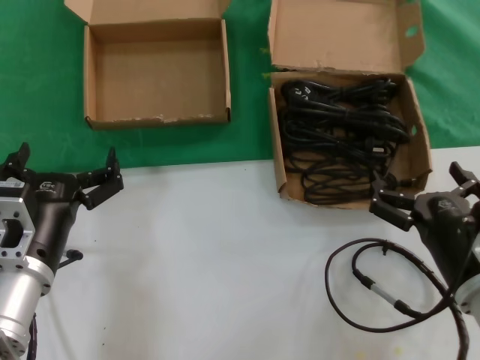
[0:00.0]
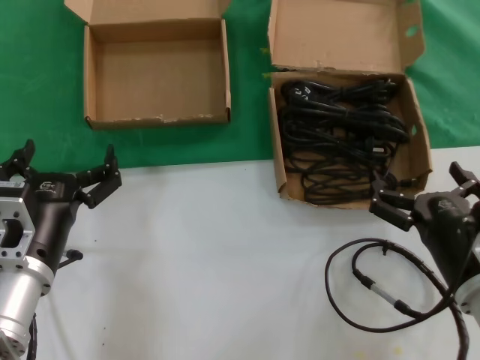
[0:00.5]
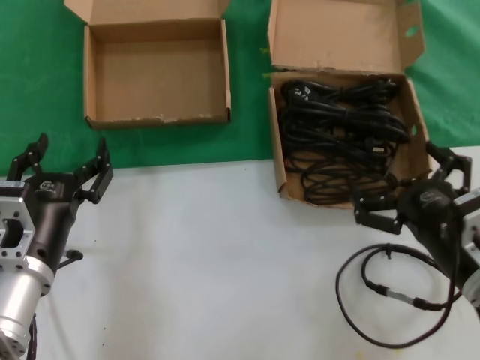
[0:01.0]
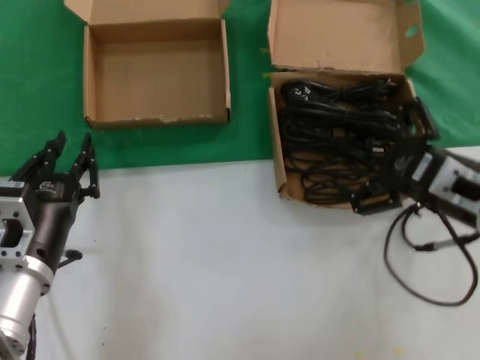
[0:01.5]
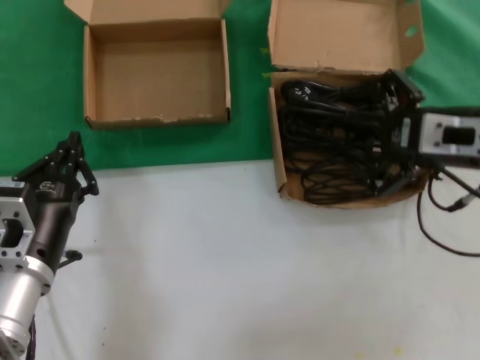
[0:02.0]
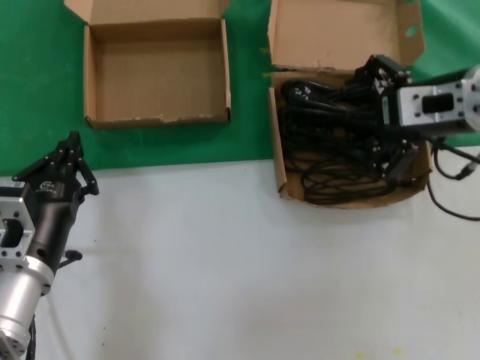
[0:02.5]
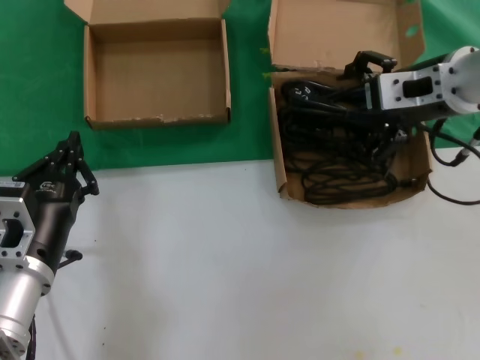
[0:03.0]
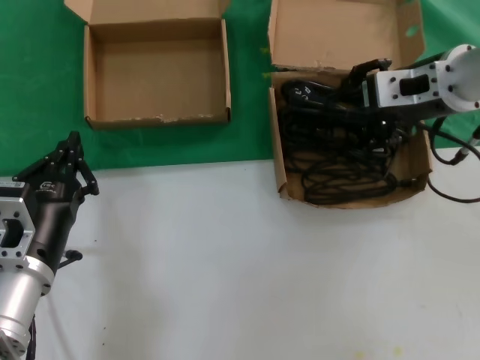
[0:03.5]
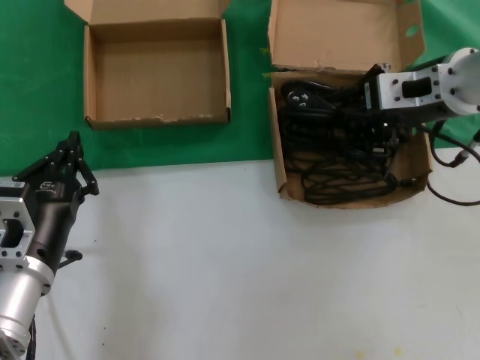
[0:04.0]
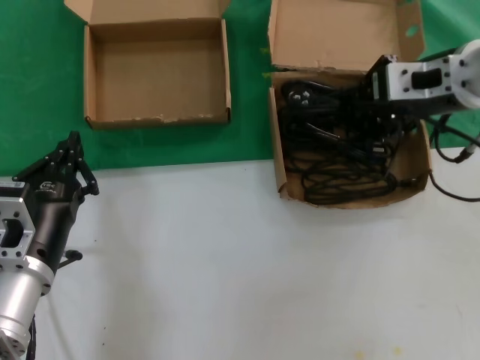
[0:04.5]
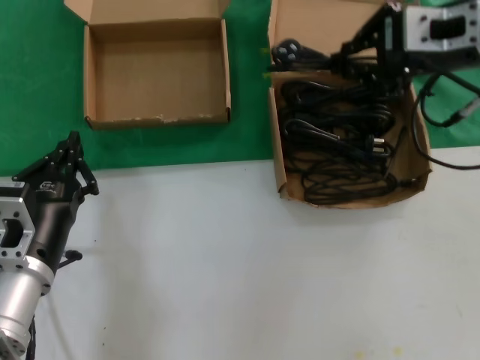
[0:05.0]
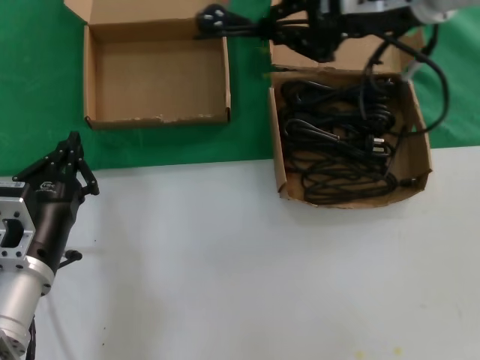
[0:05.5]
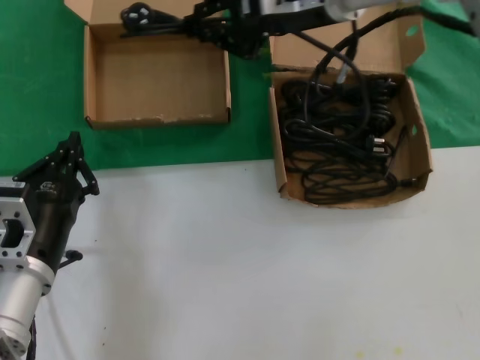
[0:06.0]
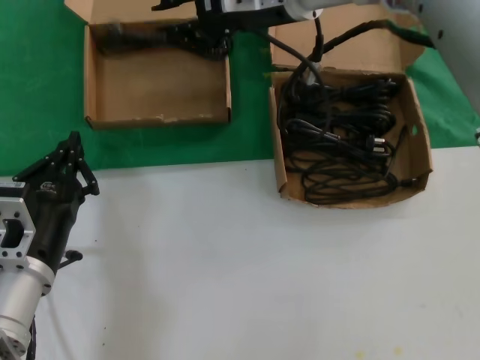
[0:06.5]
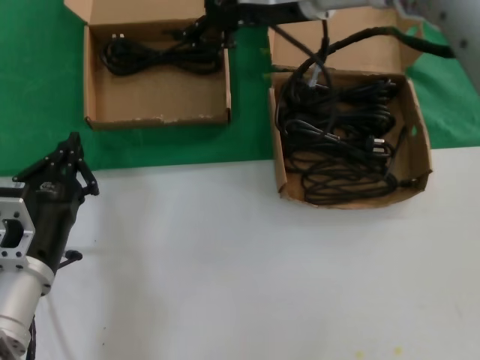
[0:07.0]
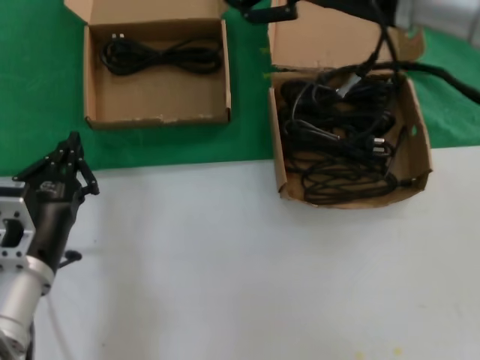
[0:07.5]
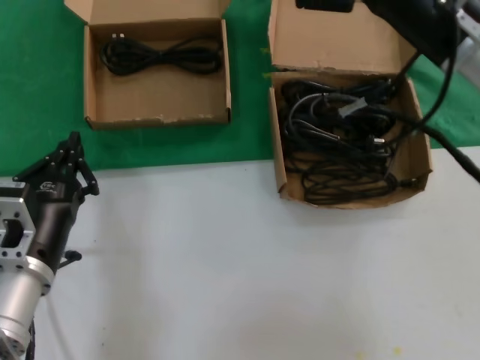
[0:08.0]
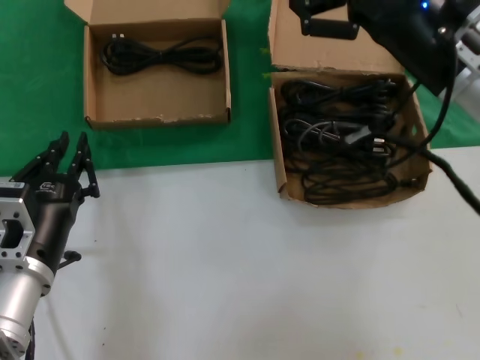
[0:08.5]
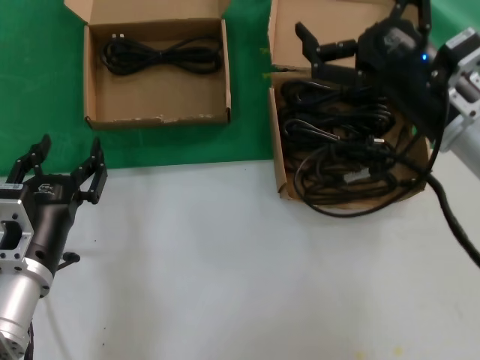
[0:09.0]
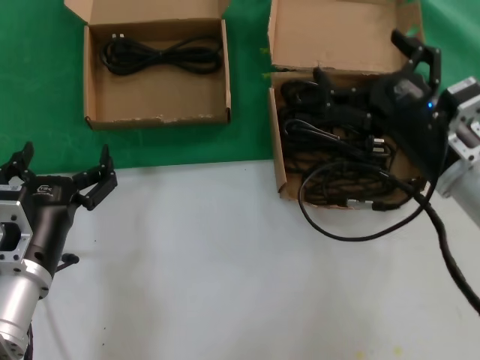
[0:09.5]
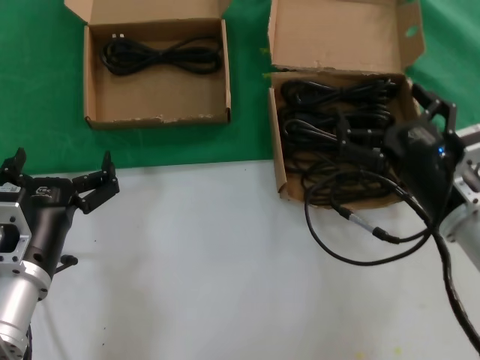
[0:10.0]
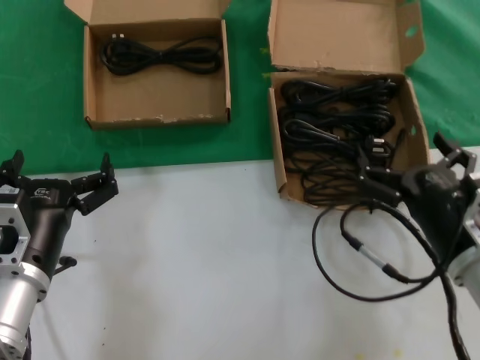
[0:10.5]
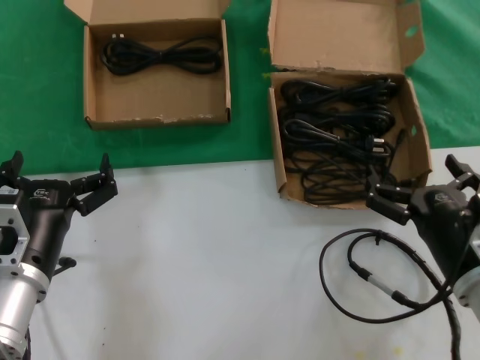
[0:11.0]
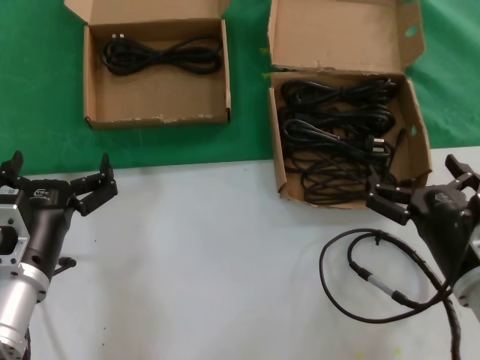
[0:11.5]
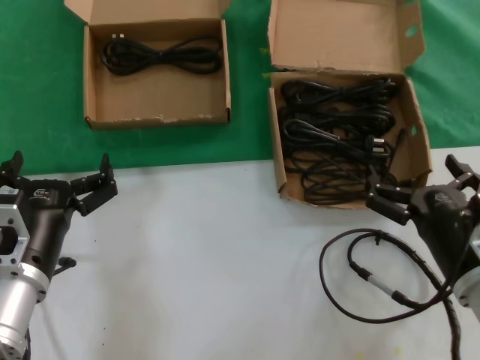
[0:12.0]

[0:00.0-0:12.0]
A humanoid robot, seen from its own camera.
Task of the whole recording: take the parts from the box containing them and put them into an empty box.
Step, 0:00.0 to 0:04.0: Grasp the data cable.
Step, 0:04.5 to 0:06.5: Place the data cable in the another box.
0:00.0 to 0:02.0: The right hand moves upward and forward, approximately 20 cm.
0:02.0 to 0:04.0: The right hand travels forward by approximately 10 cm.
0:04.0 to 0:06.0: The right hand shifts approximately 15 cm to the left and upward.
0:06.0 to 0:08.0: The right hand heads to the right, downward and backward, covering roughly 15 cm.
0:08.0 to 0:10.0: The right hand goes roughly 20 cm downward and backward.
0:10.0 to 0:12.0: The right hand heads backward, covering roughly 5 cm.

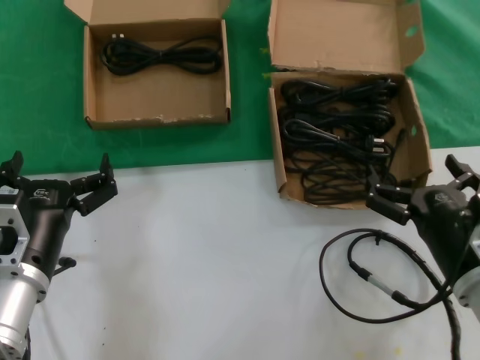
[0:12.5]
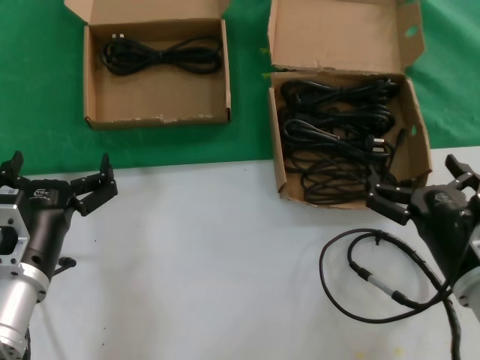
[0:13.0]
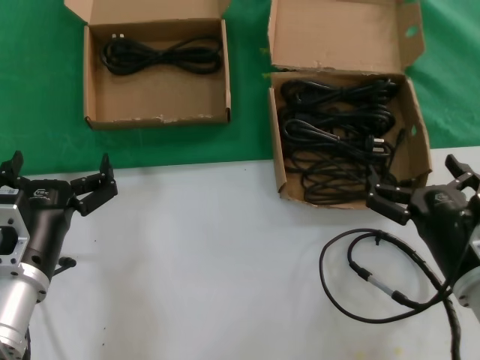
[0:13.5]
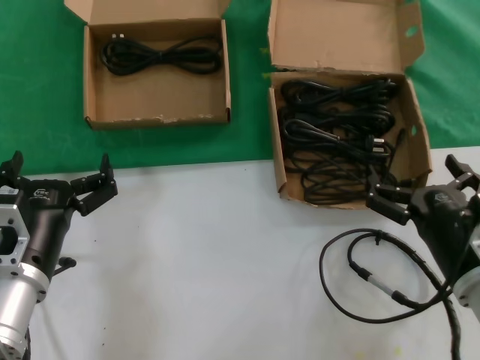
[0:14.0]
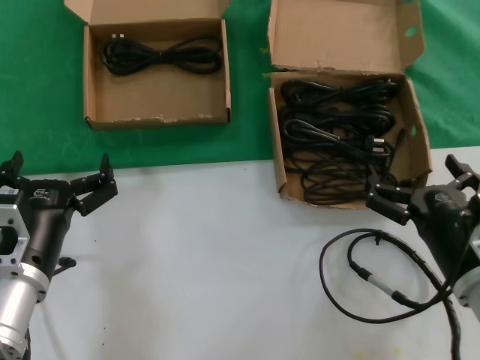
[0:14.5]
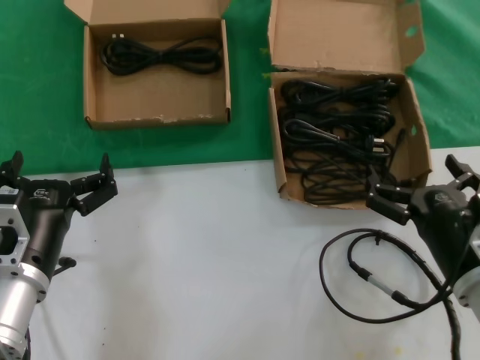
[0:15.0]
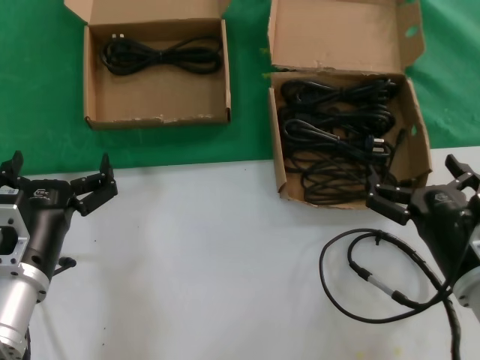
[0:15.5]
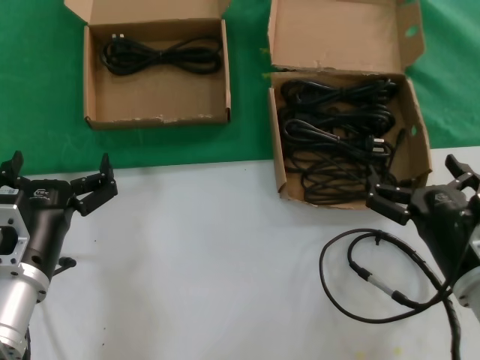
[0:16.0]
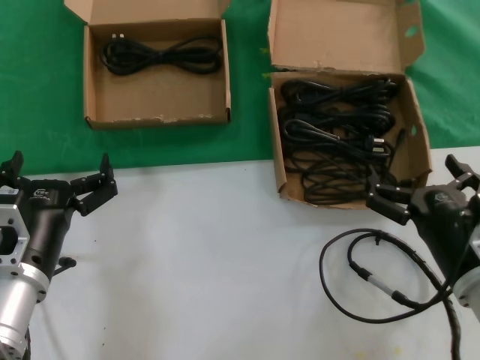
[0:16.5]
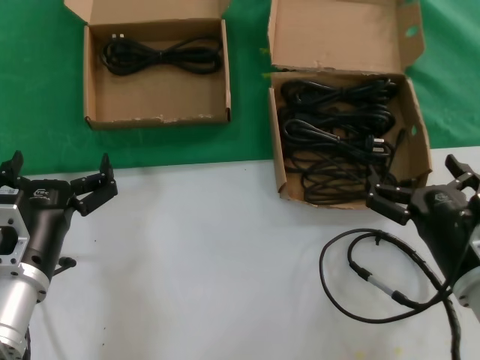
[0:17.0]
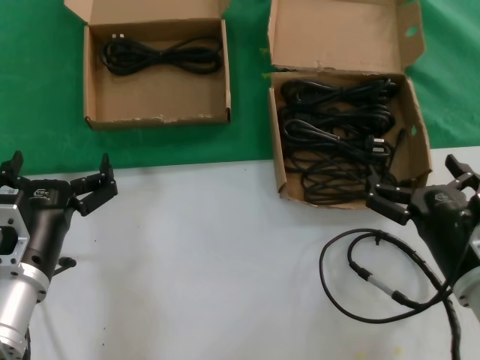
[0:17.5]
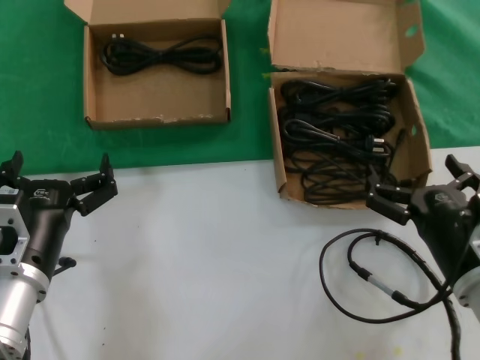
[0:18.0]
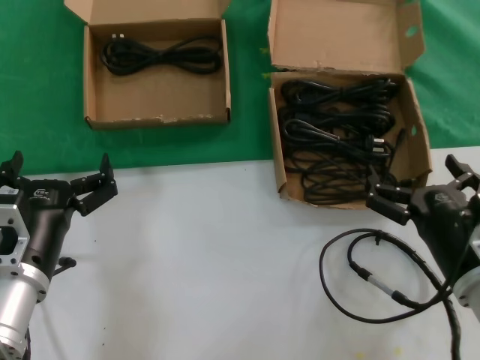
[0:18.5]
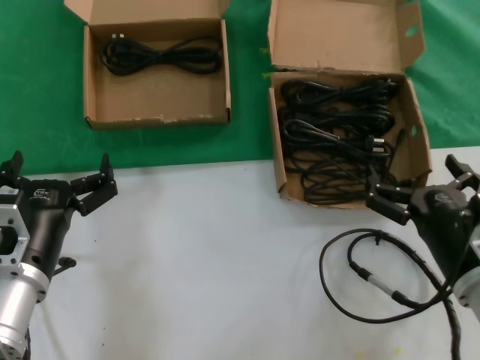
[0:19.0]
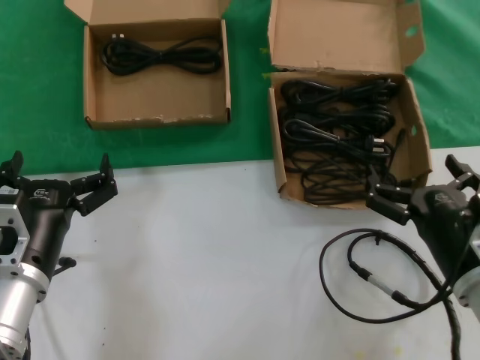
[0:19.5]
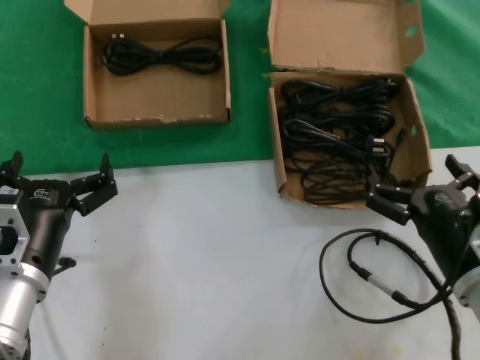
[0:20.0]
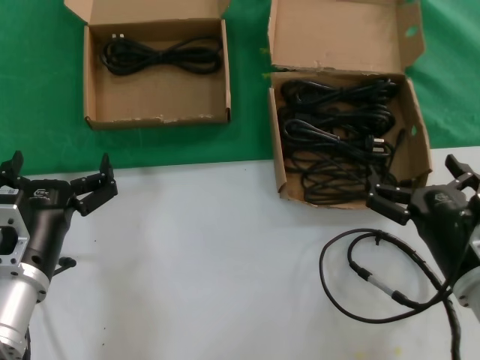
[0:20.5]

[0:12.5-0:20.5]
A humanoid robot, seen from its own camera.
Task of the whole recording: take the parts from the box containing them and put them into an empty box.
0:12.5 to 0:20.5: Both hands stay put.

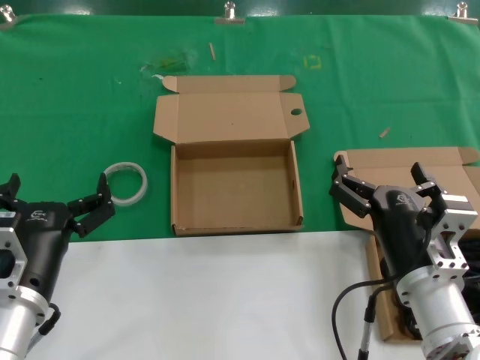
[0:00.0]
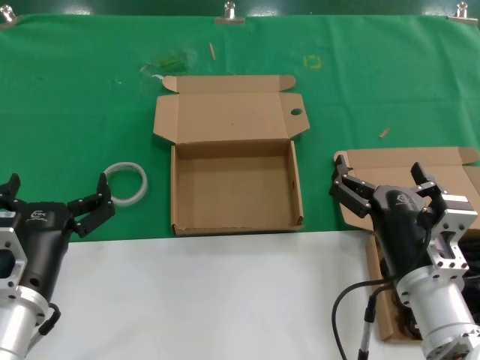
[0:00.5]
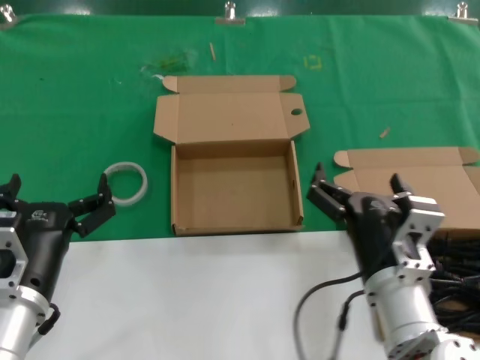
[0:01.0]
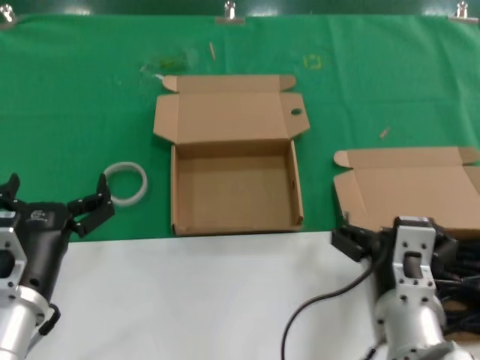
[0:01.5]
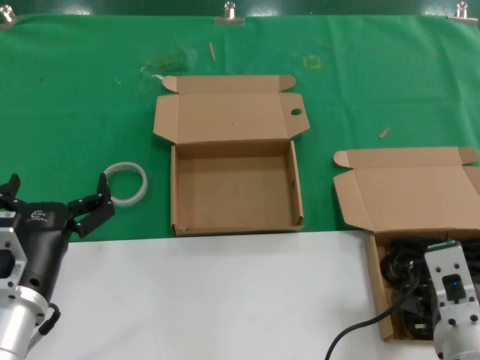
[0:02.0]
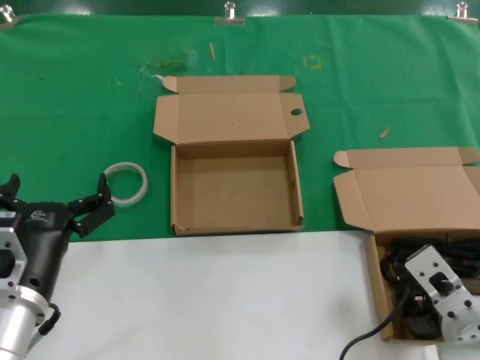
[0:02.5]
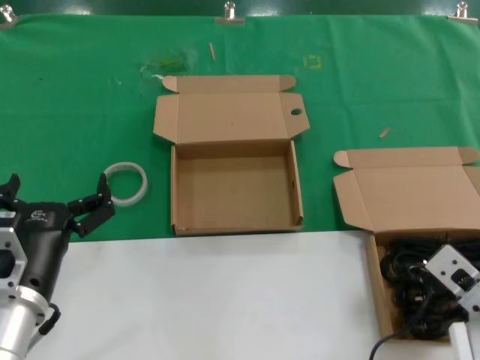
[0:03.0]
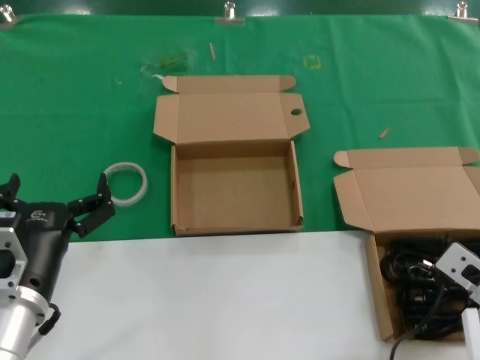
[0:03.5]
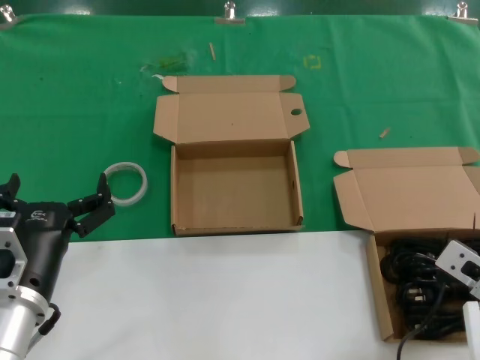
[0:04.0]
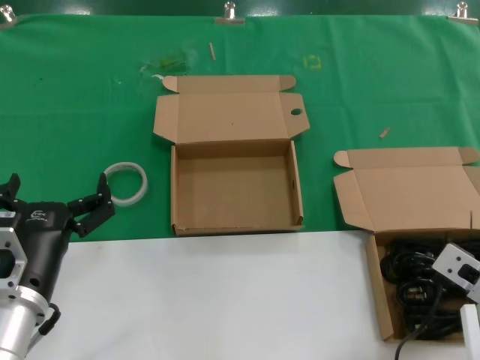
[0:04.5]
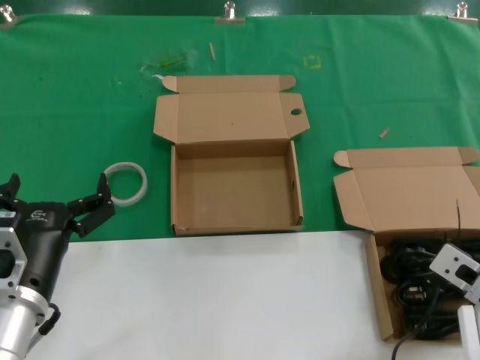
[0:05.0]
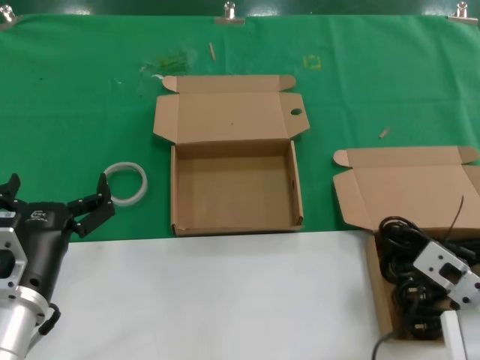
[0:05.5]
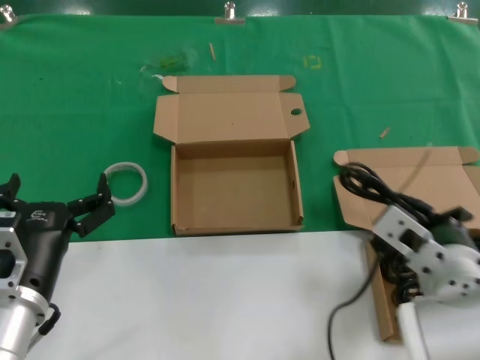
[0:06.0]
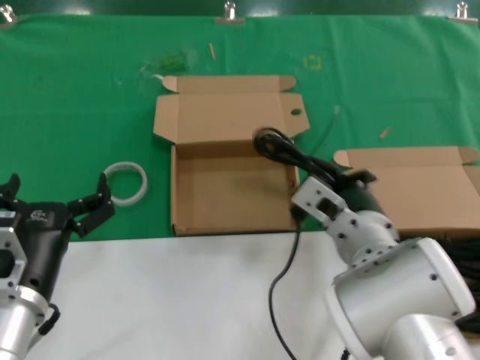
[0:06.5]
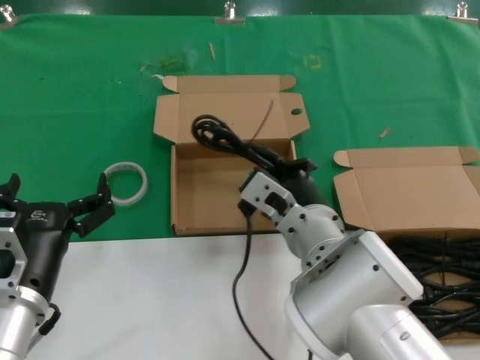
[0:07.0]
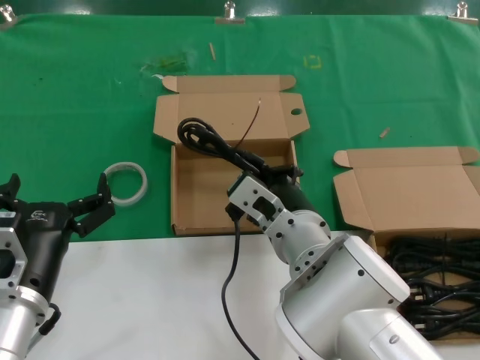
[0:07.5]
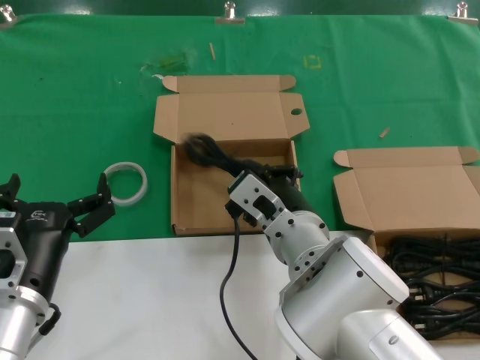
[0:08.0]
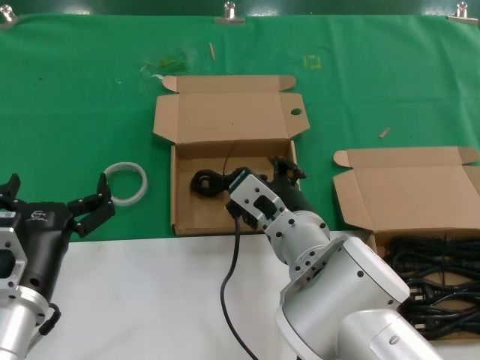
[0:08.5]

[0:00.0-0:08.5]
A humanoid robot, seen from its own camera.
Task of the whole recording: take the parts from the box containing them and put them into an empty box.
Step, 0:00.0 to 0:05.0: Grasp the data cable.
0:00.0 to 0:02.0: The right hand heads backward, covering some 5 cm.
0:02.0 to 0:04.0: The right hand heads to the right and forward, covering about 10 cm.
0:04.0 to 0:06.5: The right hand shifts approximately 15 cm to the left.
0:06.5 to 0:08.5: The right hand is displaced to the left by roughly 5 cm.
